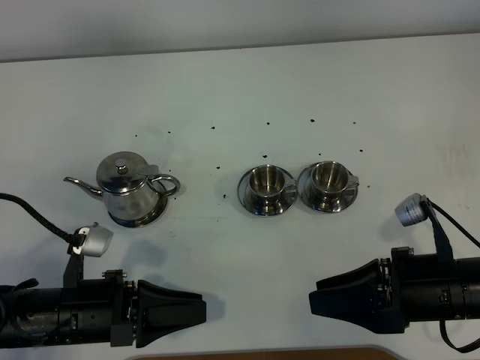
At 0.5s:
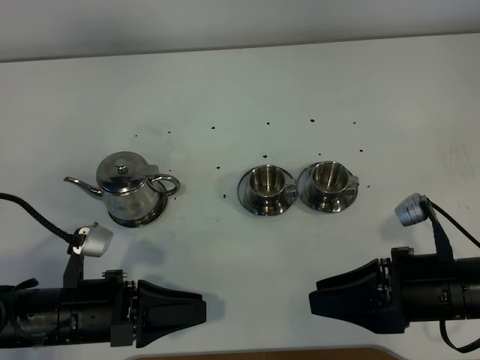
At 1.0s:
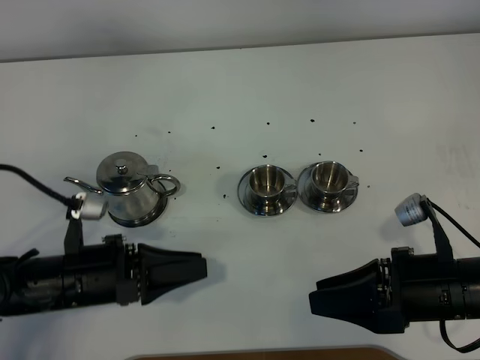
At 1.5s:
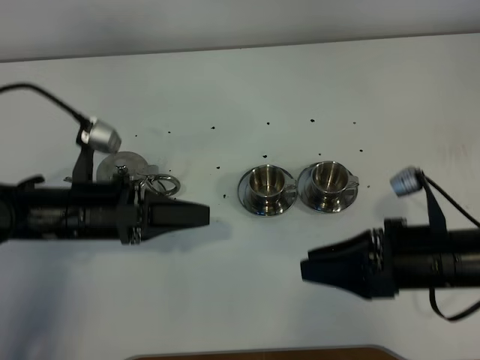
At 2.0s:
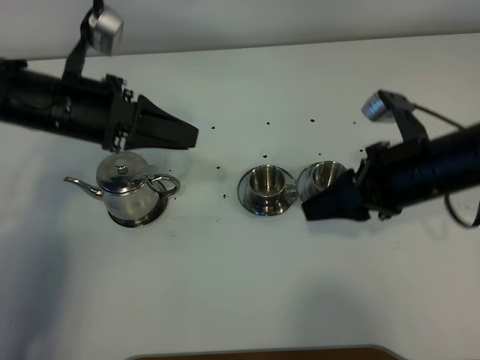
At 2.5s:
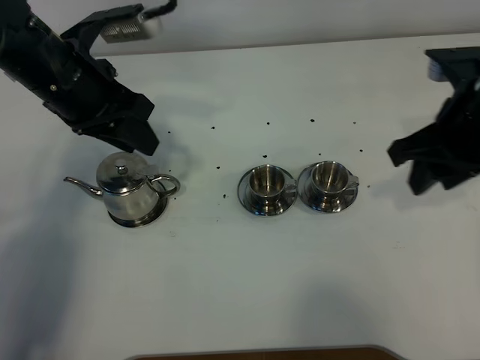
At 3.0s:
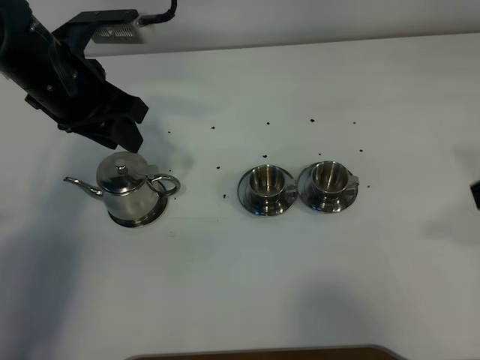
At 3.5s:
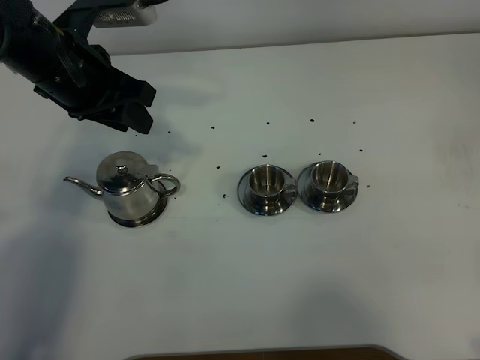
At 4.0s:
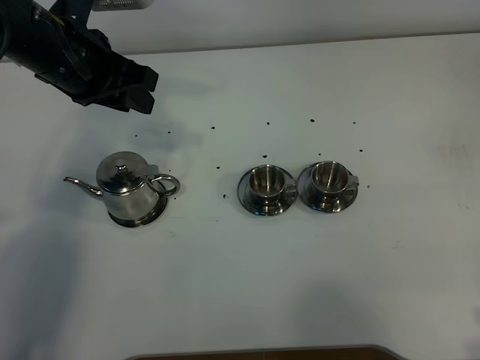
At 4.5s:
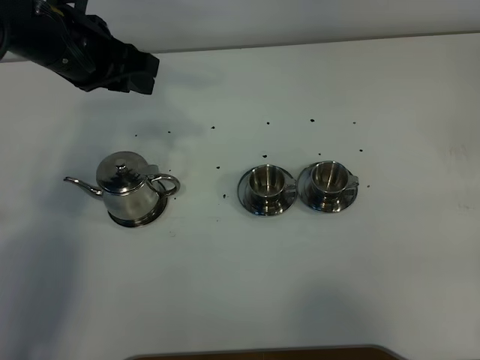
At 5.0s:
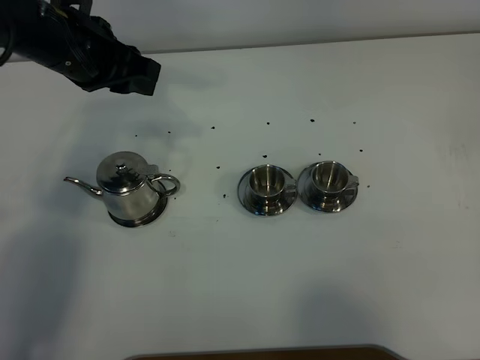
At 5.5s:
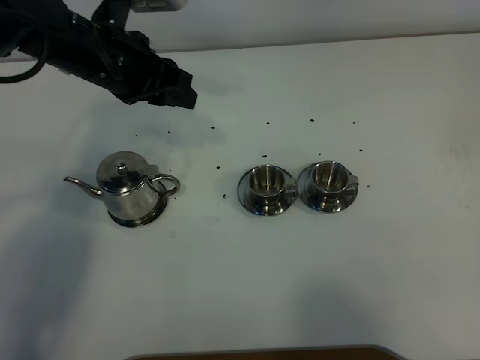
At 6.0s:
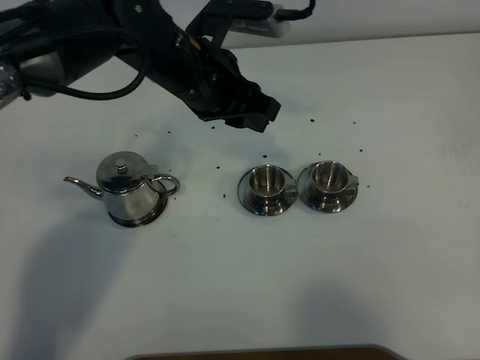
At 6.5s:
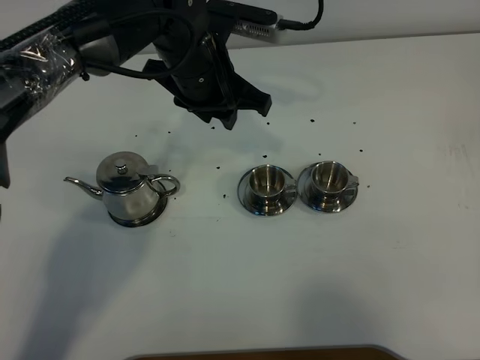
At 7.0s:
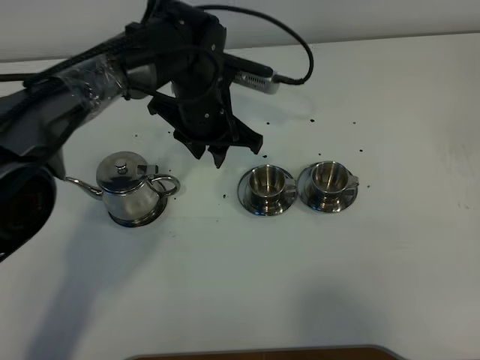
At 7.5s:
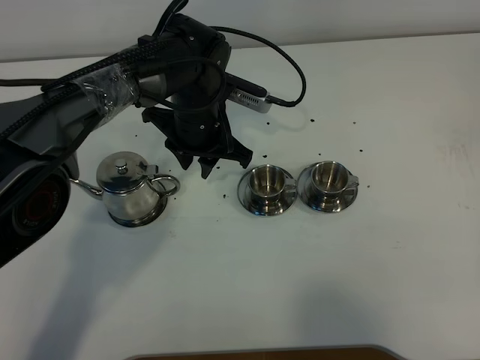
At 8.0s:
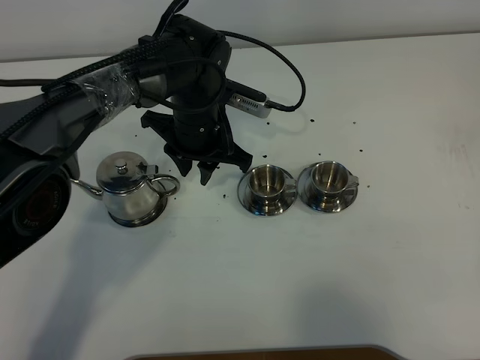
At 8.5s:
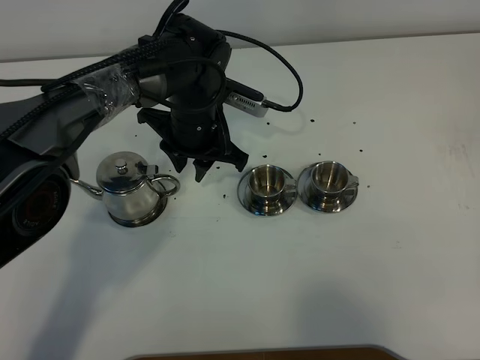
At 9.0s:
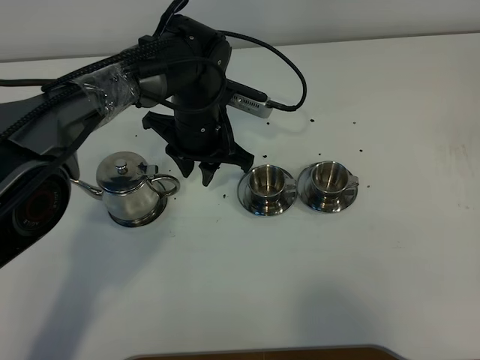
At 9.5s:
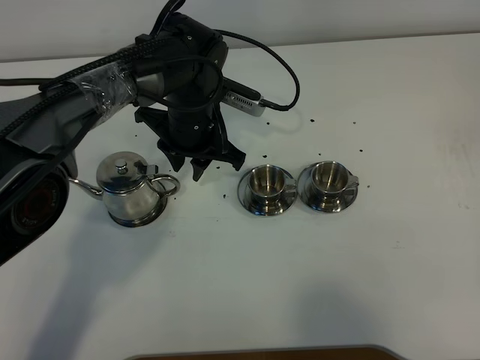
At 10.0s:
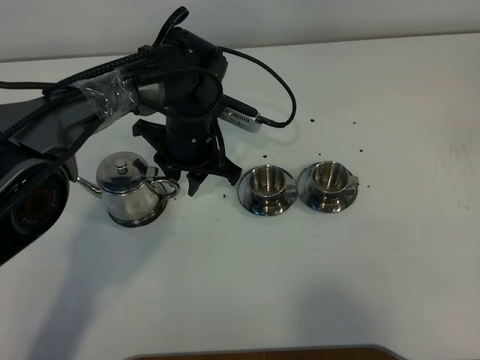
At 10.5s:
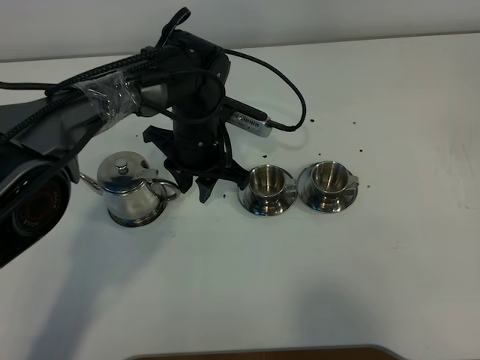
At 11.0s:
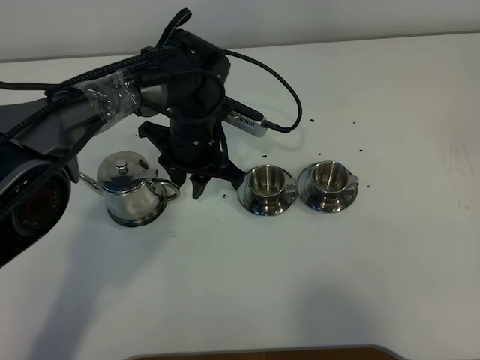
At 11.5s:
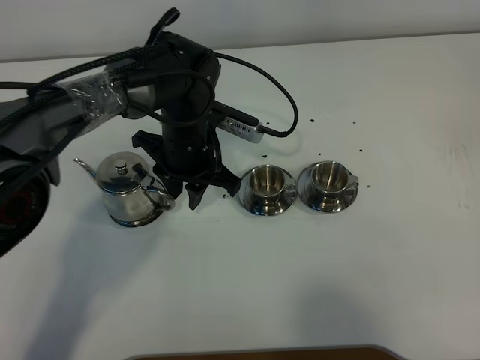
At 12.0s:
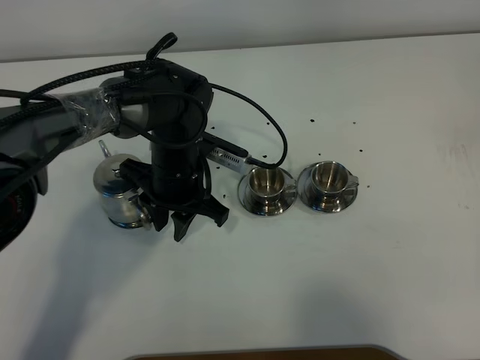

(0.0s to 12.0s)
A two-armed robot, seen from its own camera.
Task of the whole recording: grasp the stainless steel teapot and pour the tea into the two stainless steel teacups one by one, put the stainless steel teapot back in its original place.
0.0s - 2.0s: The right gripper is displaced forward and upward by about 15 cm. Meanwhile the left gripper goes roughly 25 cm forward and upward.
2.0s - 4.0s: The left gripper changes place by about 5 cm. Meanwhile the right gripper goes roughly 25 cm backward and to the right.
4.0s - 6.0s: The right gripper goes roughly 5 cm backward, while the left gripper goes approximately 15 cm to the right.
6.0s - 8.0s: The left gripper moves downward, some 10 cm.
8.0s - 10.0s: The grippers move only a little.
10.0s - 12.0s: The left gripper shifts by approximately 5 cm.

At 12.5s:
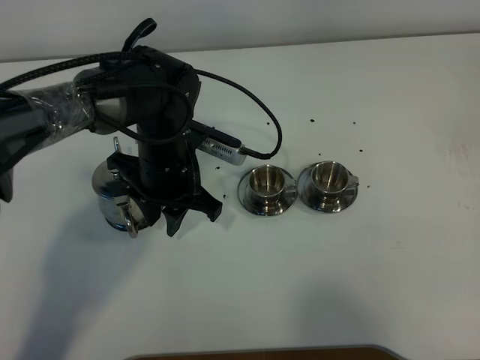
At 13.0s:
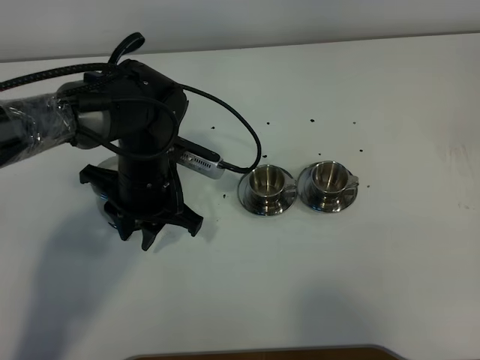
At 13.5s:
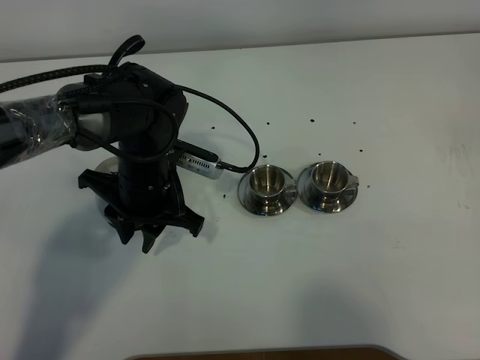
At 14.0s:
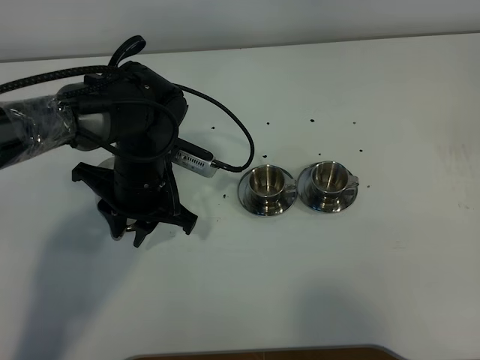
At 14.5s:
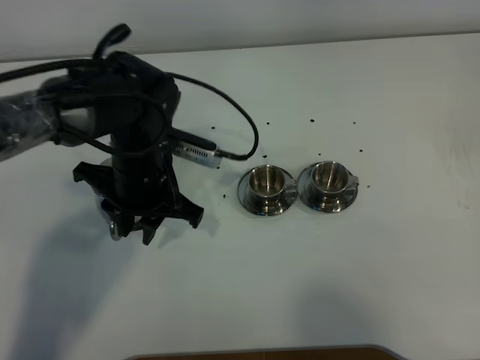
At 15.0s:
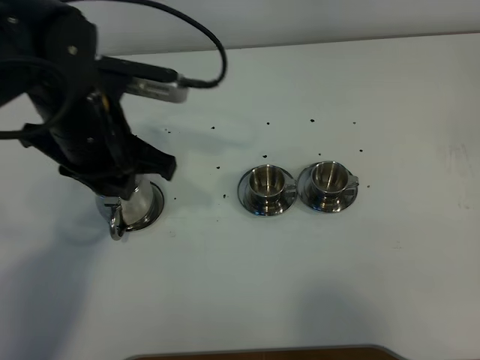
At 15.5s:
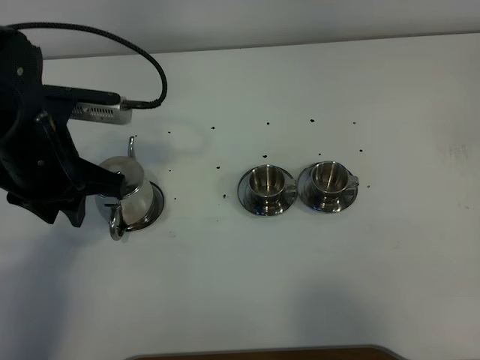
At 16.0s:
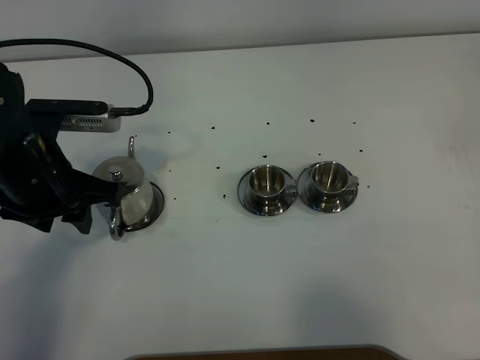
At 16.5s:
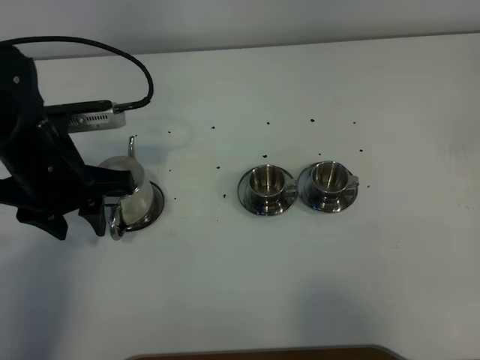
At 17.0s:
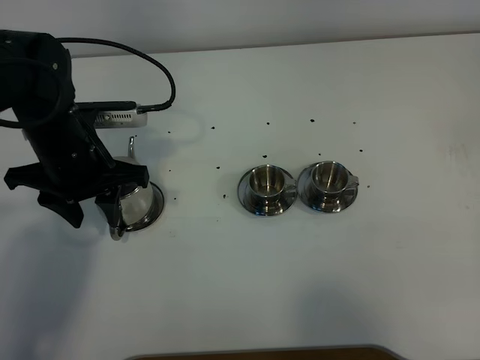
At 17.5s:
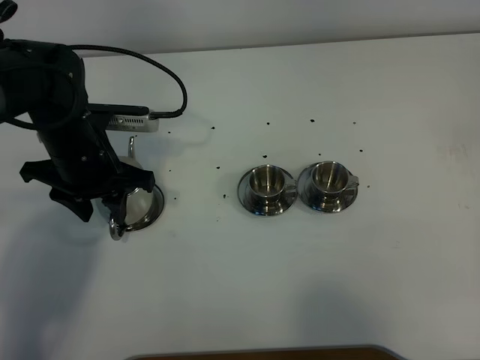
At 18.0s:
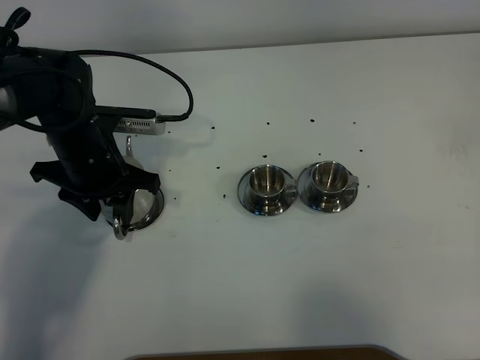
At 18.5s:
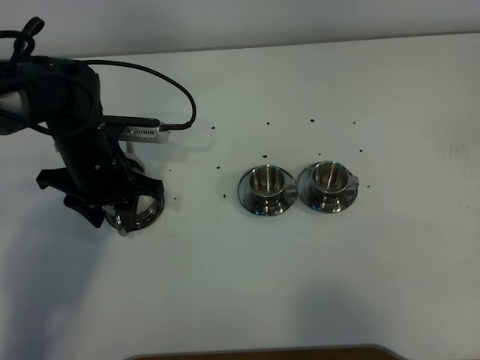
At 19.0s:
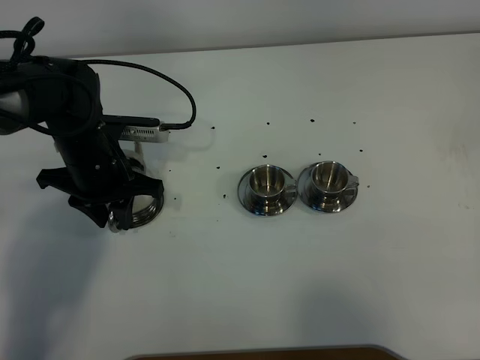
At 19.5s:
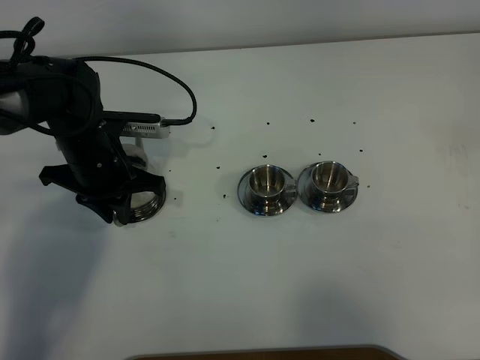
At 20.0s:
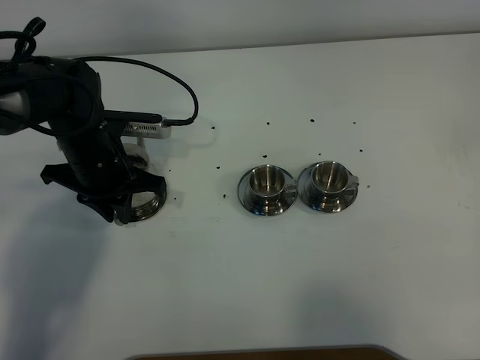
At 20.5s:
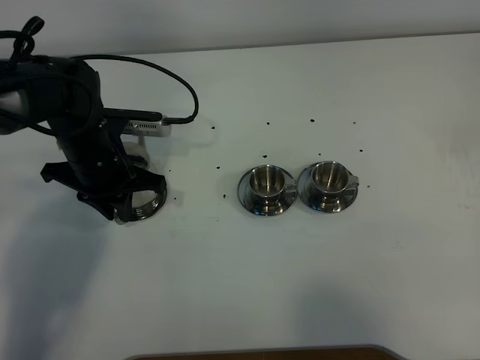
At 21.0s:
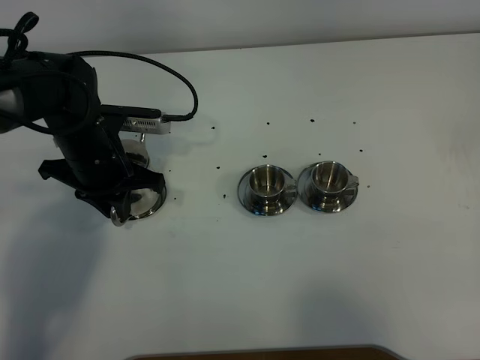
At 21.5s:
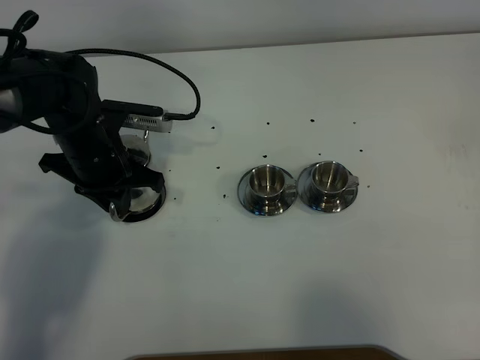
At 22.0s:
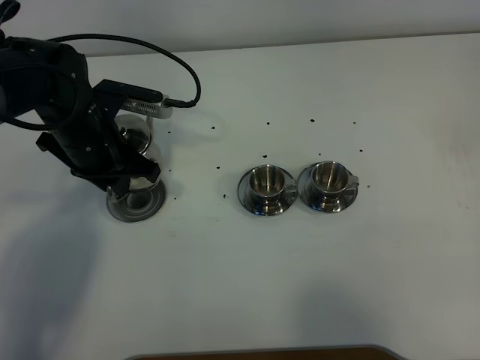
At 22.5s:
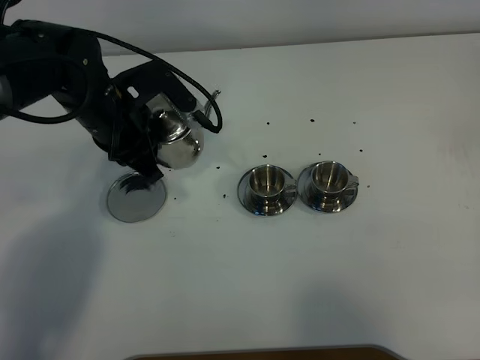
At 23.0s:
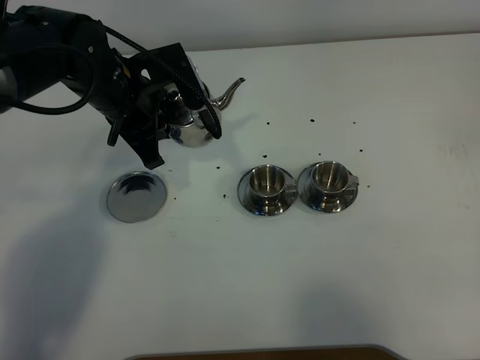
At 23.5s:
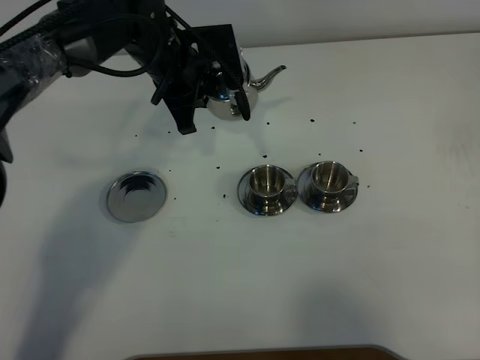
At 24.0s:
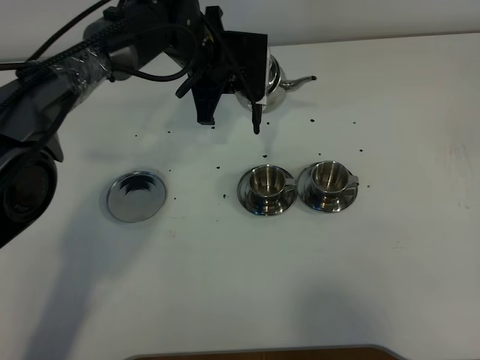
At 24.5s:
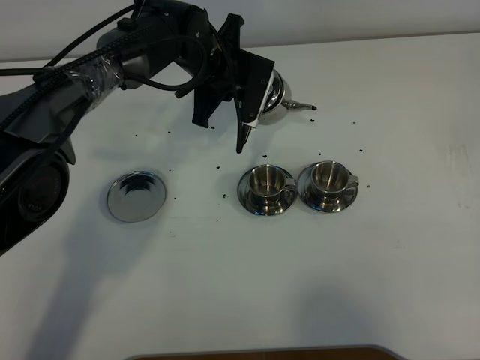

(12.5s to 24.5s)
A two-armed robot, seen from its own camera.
Task of the whole recording: grasp the stainless steel teapot and pour the tea into the two stainless steel teacups one by one, put the stainless steel teapot back in its original place.
Step, 12.5s - 21.5s: Pick up the teapot with the left gripper.
12.5s - 14.5s: The grippers make only small movements.
14.5s - 16.5s: The left gripper goes approximately 10 cm to the left, and opens.
16.5s - 18.5s: The left gripper heads downward and forward, covering roughly 10 cm.
18.5s - 20.5s: The left gripper closes.
20.5s - 22.5s: The left gripper is displaced upward by about 5 cm.
22.5s - 24.5s: The left gripper is displaced forward and to the right by some 15 cm.

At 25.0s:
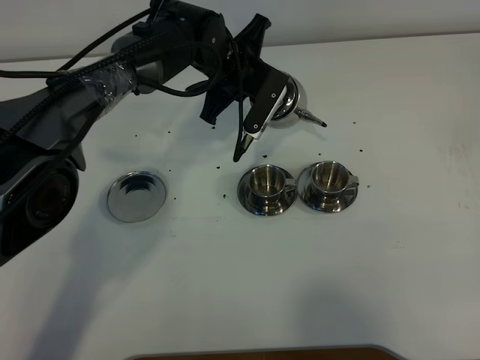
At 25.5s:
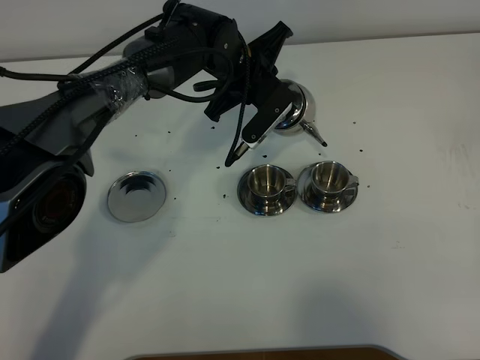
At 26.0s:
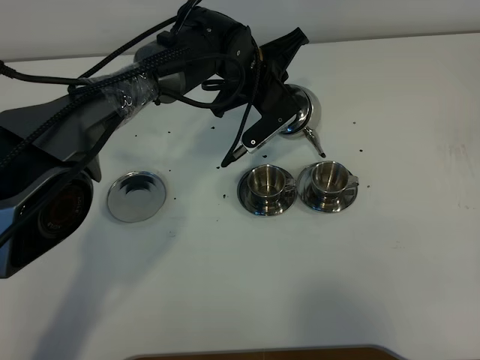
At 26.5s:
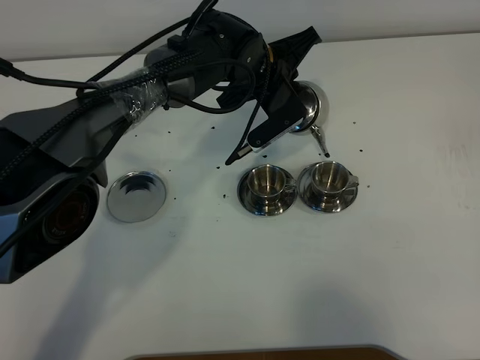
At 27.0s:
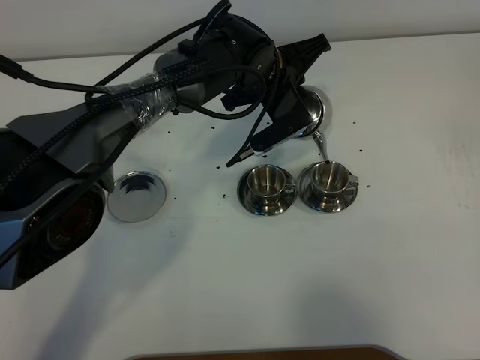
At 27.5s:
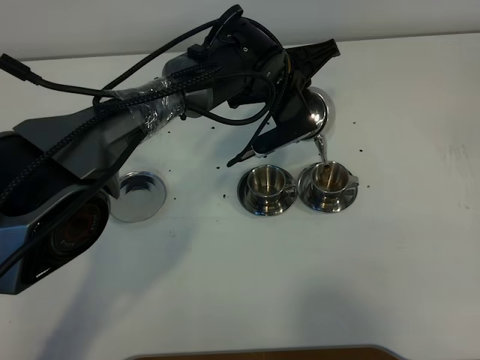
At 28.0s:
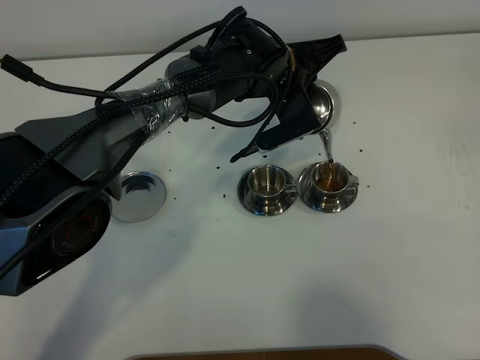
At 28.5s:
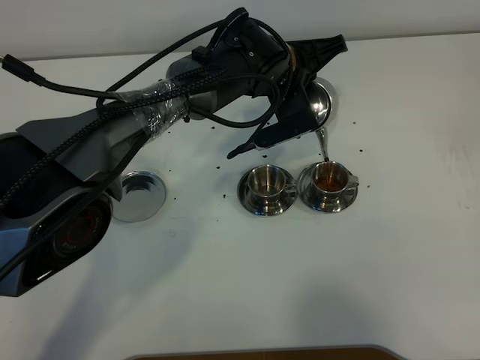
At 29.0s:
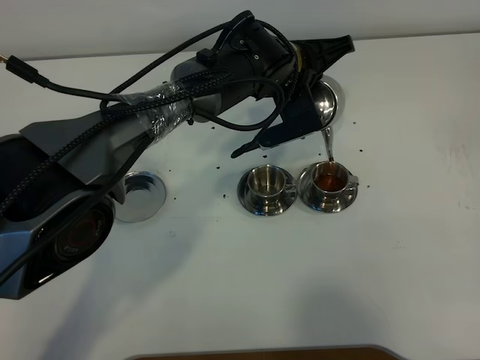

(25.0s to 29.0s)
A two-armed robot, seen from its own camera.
Task of the whole recording: grasp the stainless steel teapot and pour the tea into the two stainless steel teacups one by one, put the stainless steel teapot back in its original place.
25.0s - 27.0s: The left gripper heads to the right, covering about 5 cm.
27.0s - 29.0s: The grippers stay close to where they were, moving slightly.
